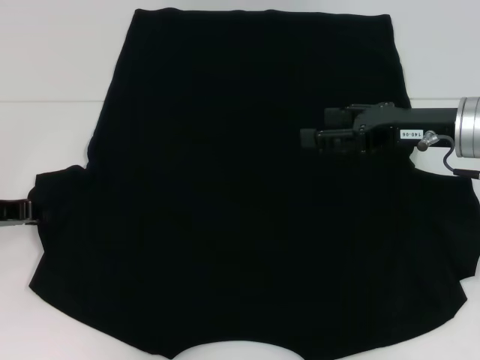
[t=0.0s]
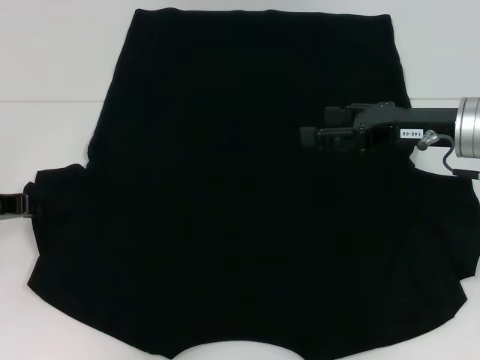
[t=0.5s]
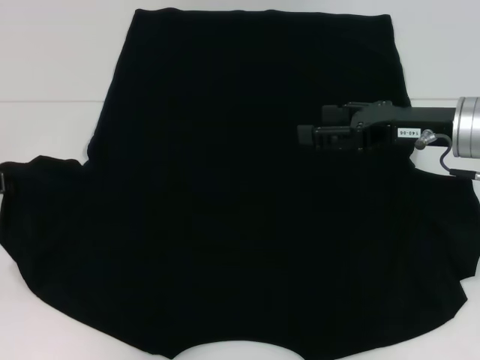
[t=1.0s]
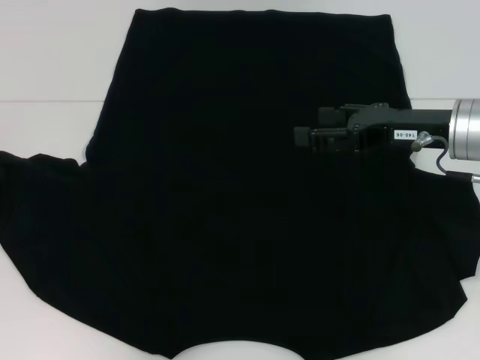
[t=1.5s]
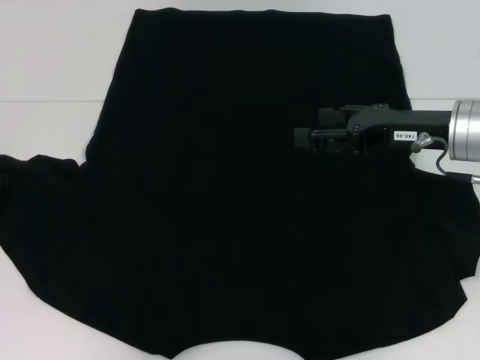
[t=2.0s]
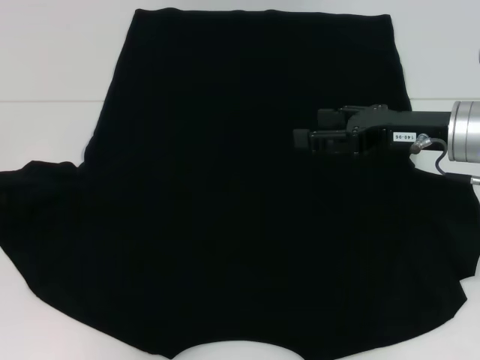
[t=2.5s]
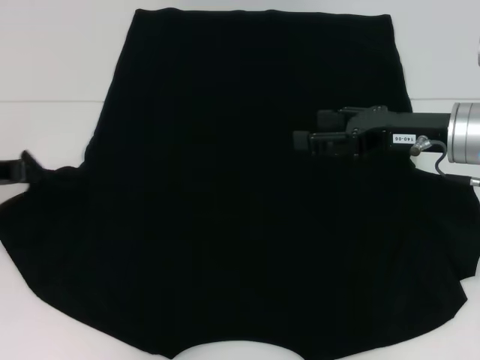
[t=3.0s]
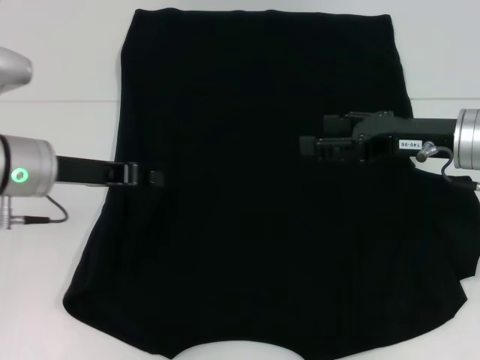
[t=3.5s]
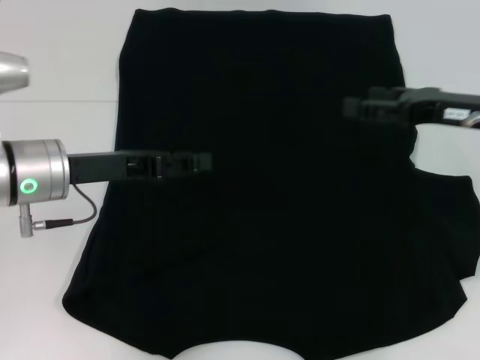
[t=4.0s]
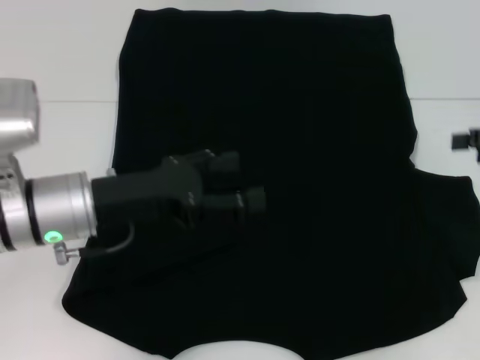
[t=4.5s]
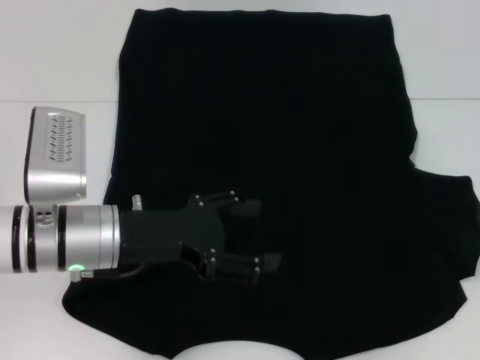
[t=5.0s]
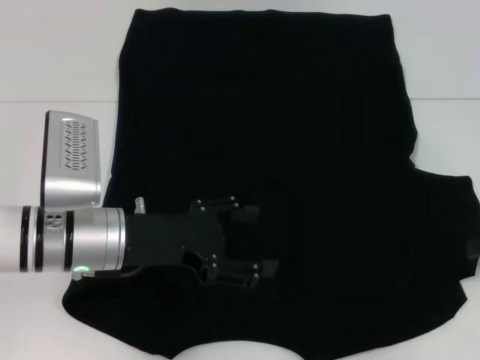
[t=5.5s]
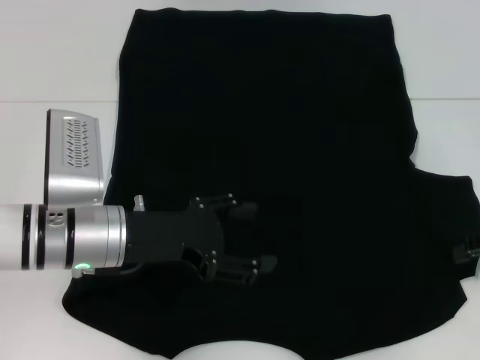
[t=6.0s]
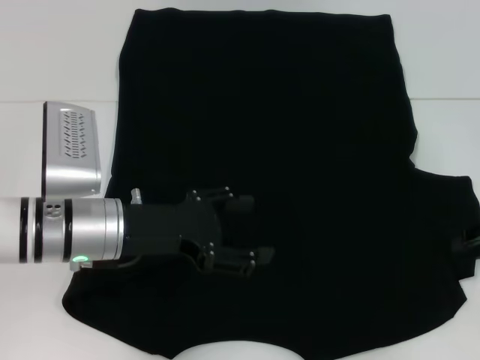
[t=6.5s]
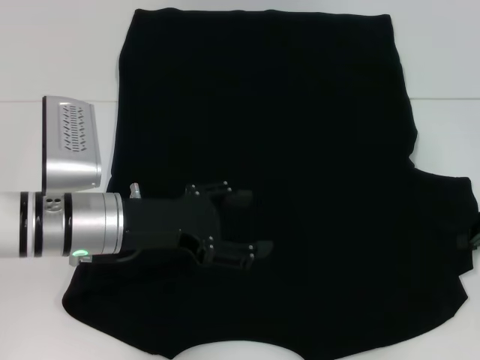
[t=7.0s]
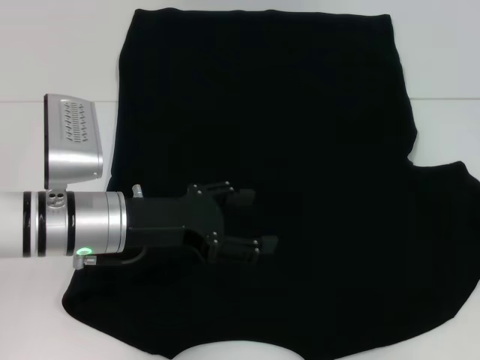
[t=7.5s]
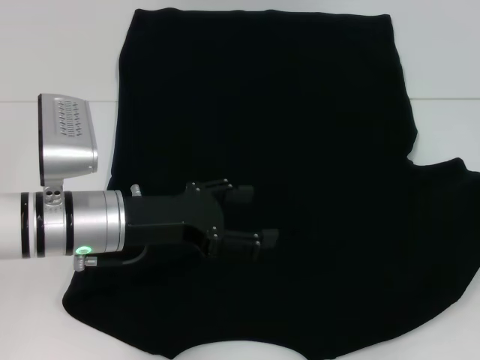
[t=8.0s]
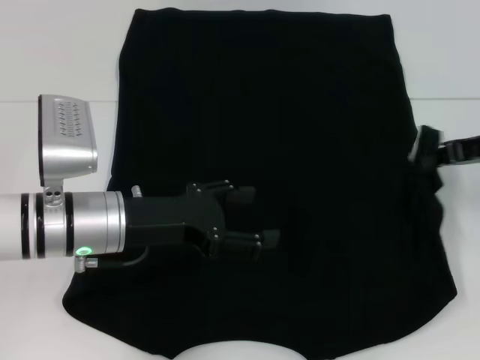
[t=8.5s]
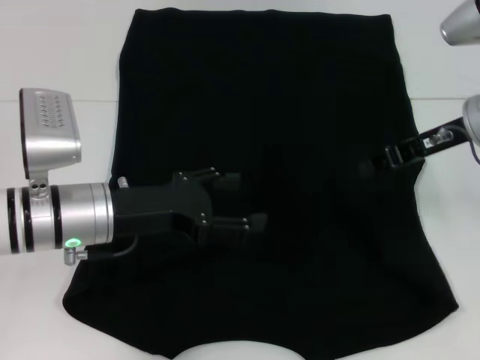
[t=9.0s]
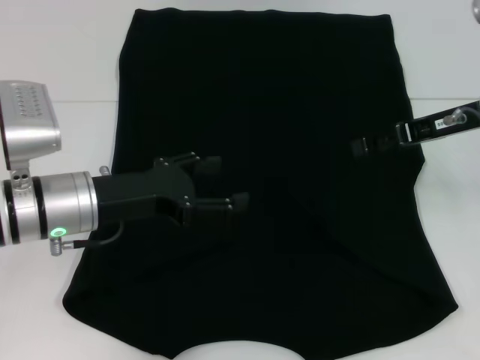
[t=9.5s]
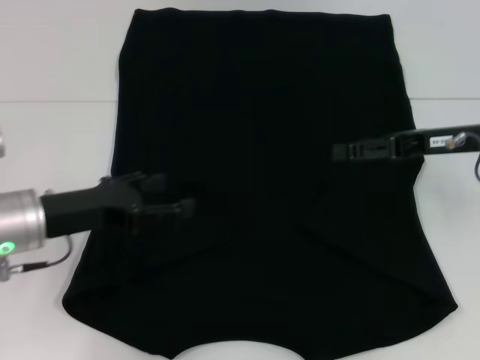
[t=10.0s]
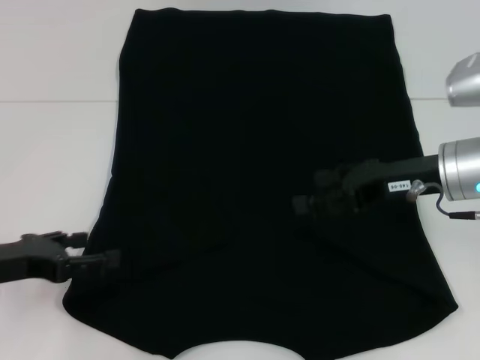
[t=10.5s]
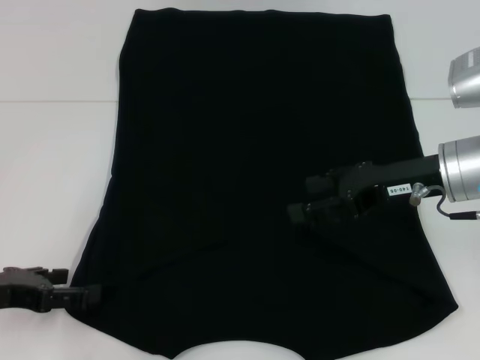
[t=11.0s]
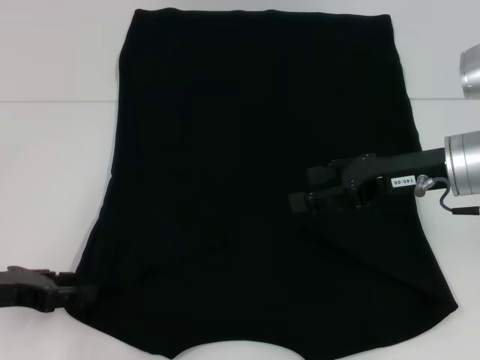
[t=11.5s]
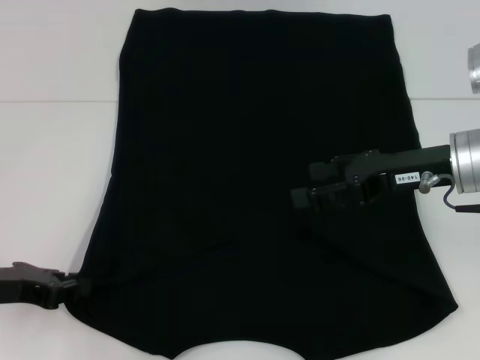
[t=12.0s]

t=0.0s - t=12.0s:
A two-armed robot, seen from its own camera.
Step, t=0.0s - t=4.0s: Fold the bottom left sleeve with your left hand.
Step, t=4.5s - t=9.0s: Fold the bottom right sleeve with your right hand.
t=0.0s - t=2.0s: The grippers stay close to where they were, moving slightly.
t=2.0s - t=4.0s: The left gripper heads to the right, covering some 15 cm, and opens up.
t=4.0s - t=6.0s: The left gripper moves roughly 5 cm, and opens up; the right gripper is displaced to the right by approximately 10 cm.
t=6.0s - t=8.0s: The right gripper closes up.
t=8.0s - t=10.0s: The right gripper travels to the left by about 10 cm, and opens. The left gripper goes some 5 cm to the left.
t=10.0s - t=12.0s: The left gripper shifts some 5 cm to the left, and closes.

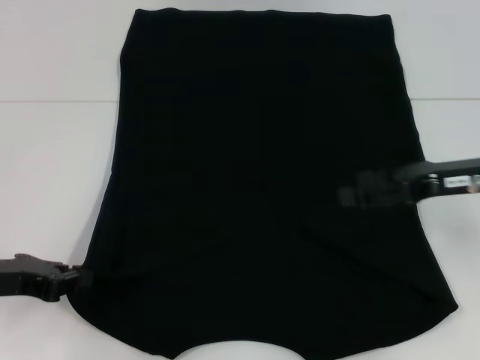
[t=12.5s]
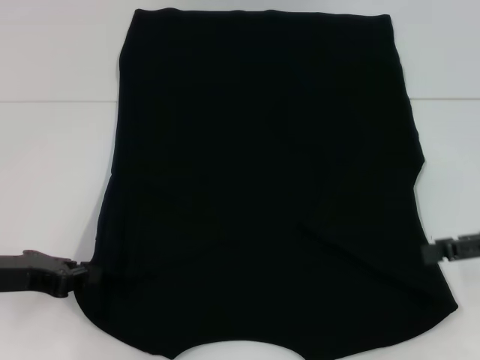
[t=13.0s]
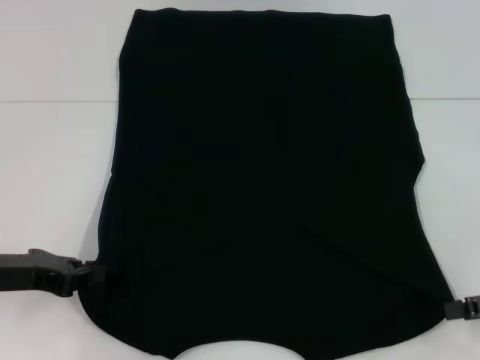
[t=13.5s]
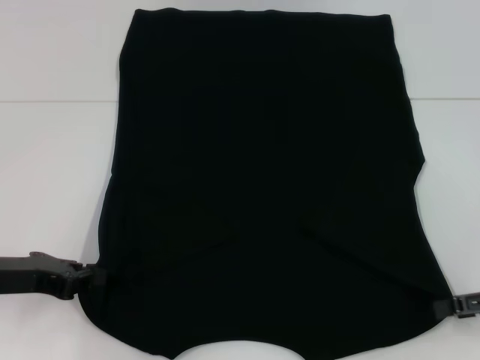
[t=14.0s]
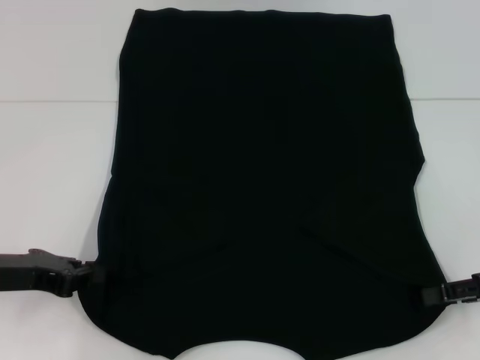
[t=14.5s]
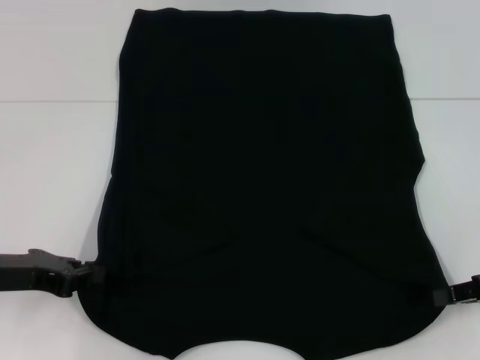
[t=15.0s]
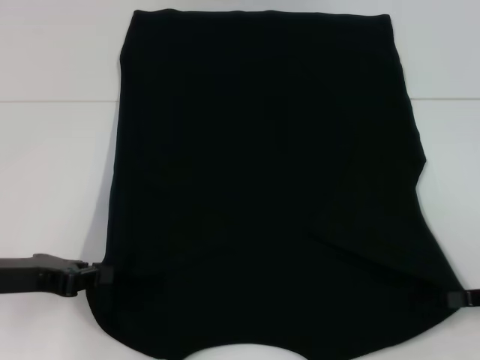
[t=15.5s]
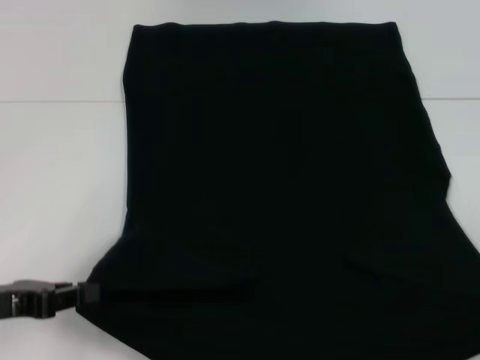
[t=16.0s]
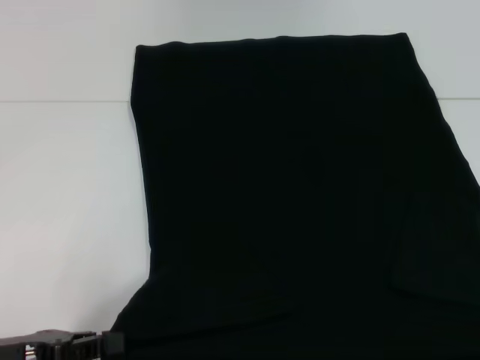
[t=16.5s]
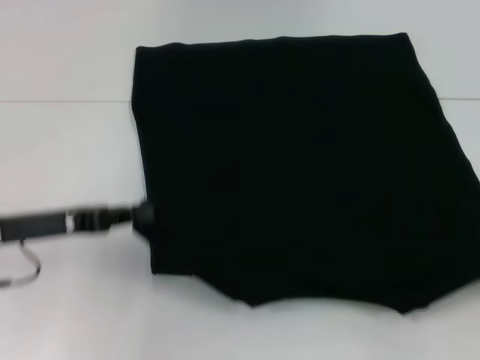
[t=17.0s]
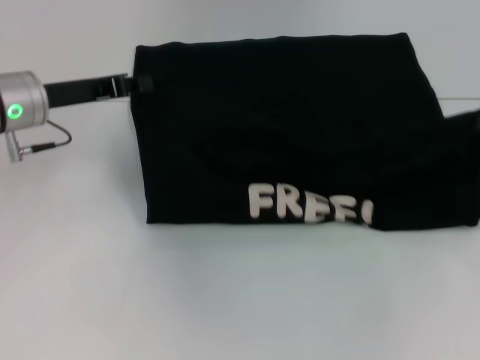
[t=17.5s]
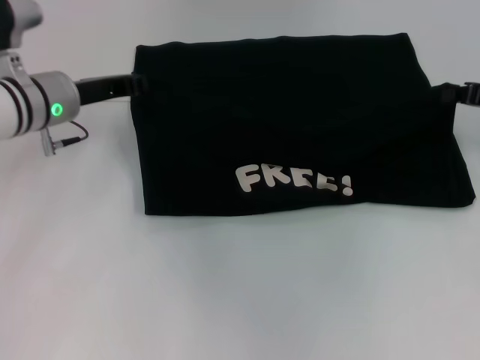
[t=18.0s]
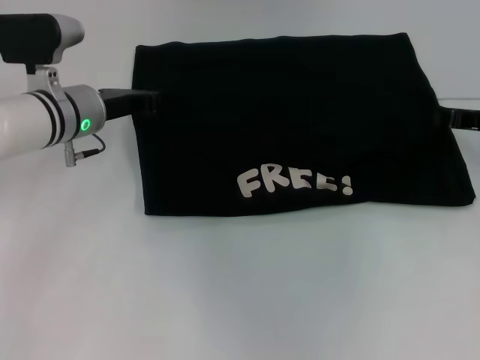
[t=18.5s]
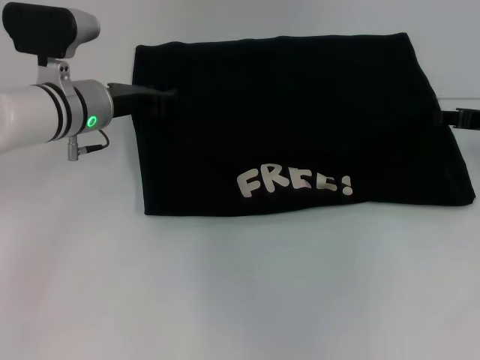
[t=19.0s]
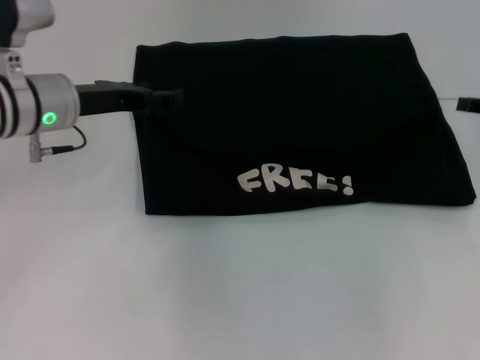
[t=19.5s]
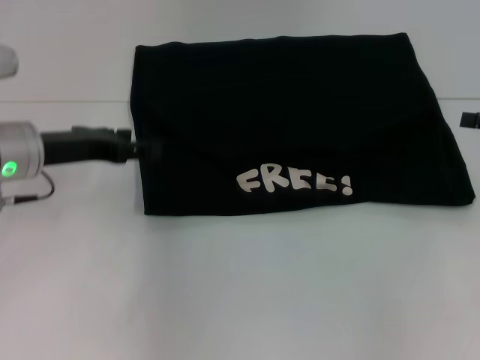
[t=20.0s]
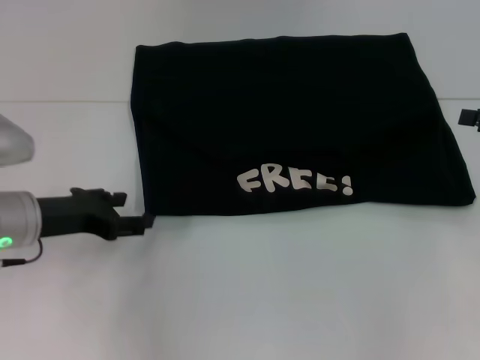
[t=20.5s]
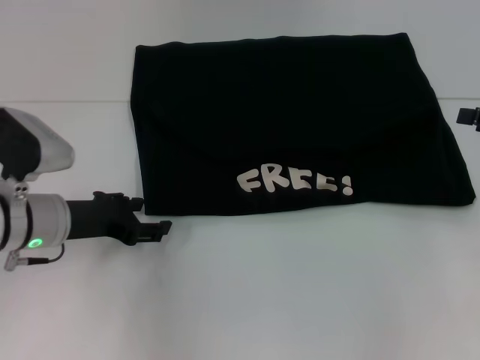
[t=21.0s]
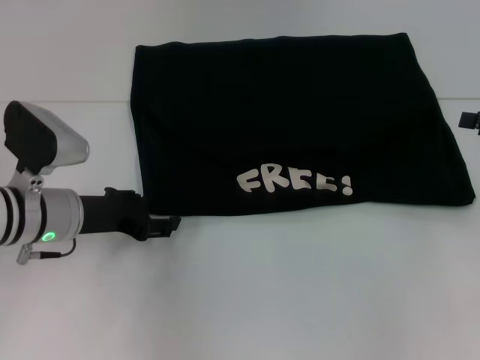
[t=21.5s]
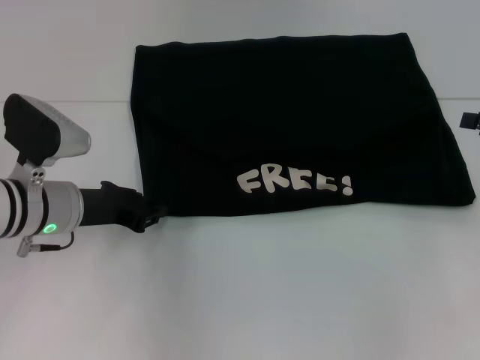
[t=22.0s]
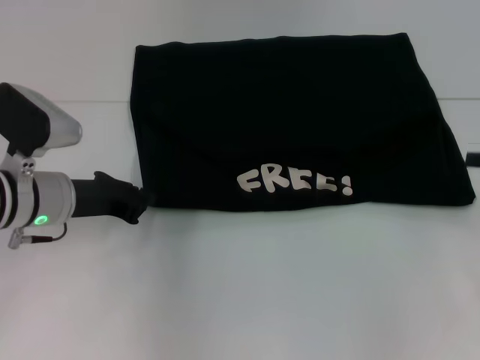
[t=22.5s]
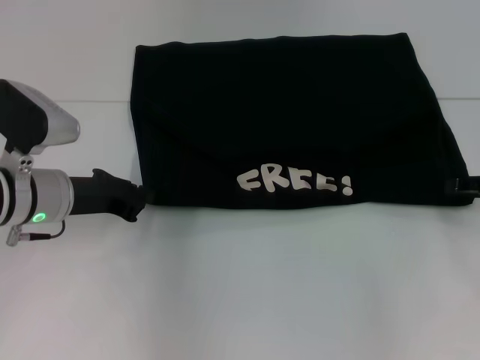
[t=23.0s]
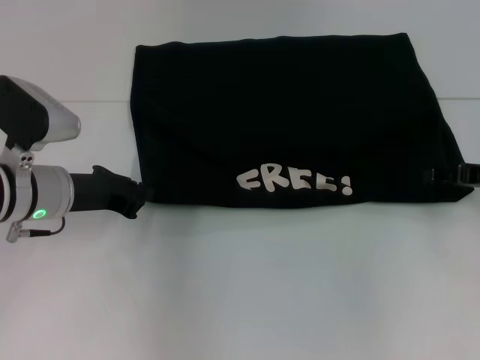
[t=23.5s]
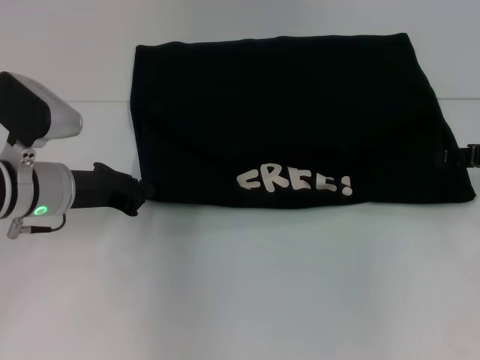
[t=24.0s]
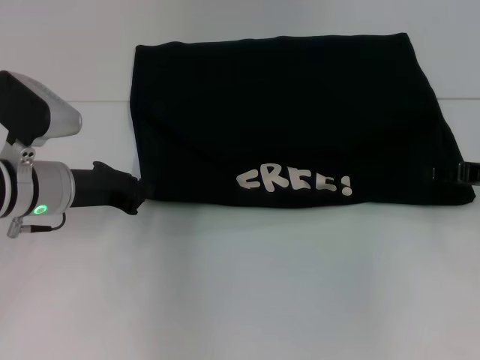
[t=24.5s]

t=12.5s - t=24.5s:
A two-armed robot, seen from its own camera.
Step, t=12.5s - t=15.0s: Grab the bottom right corner with your right hand.
Step, t=15.5s - t=20.0s: Fold the clothes with your left hand.
Step, t=15.5s - t=20.0s: Fold the clothes with your right hand.
t=12.5s - t=14.5s: The right gripper heads to the right, backward and downward, covering roughly 10 cm.
t=14.5s - t=16.5s: The left gripper goes about 10 cm backward, while the right gripper moves backward and to the right, roughly 15 cm, and closes up.
t=16.5s - t=18.5s: The right gripper moves forward and to the left, approximately 30 cm. Meanwhile the left gripper travels forward and to the right by roughly 25 cm.
t=18.5s - t=20.5s: The right gripper travels backward and to the right by about 10 cm, and opens its fingers, while the left gripper is displaced backward and to the left by some 10 cm, and opens its fingers.
t=20.5s - t=22.5s: The left gripper closes its fingers.
t=22.5s - t=24.5s: The right gripper heads to the left, covering about 5 cm.

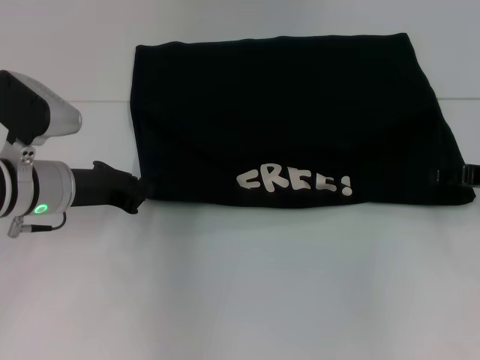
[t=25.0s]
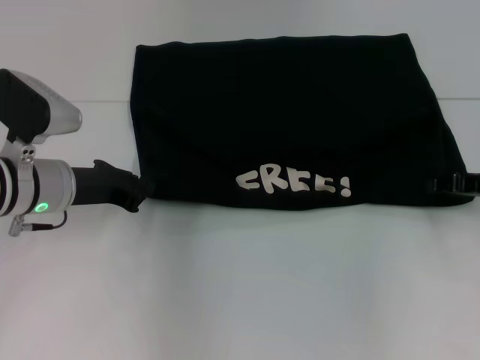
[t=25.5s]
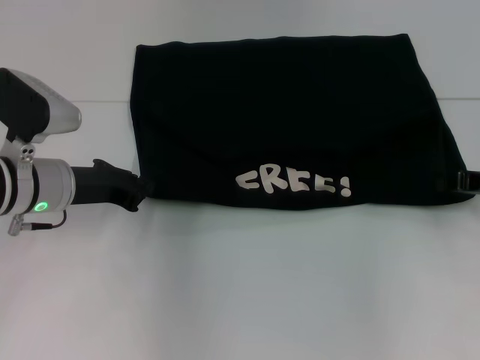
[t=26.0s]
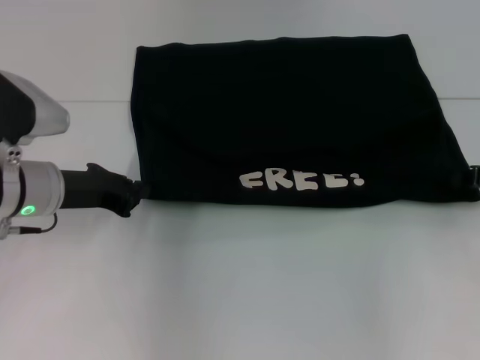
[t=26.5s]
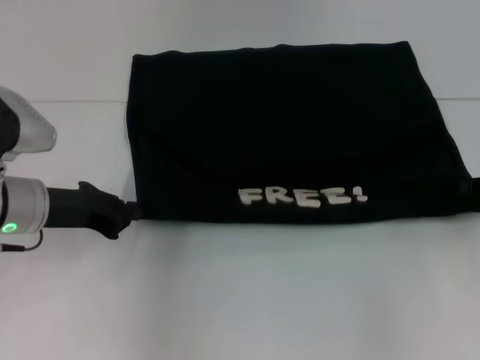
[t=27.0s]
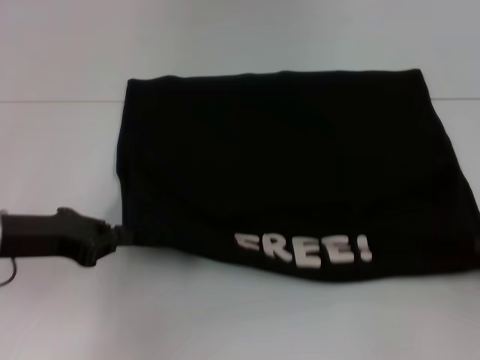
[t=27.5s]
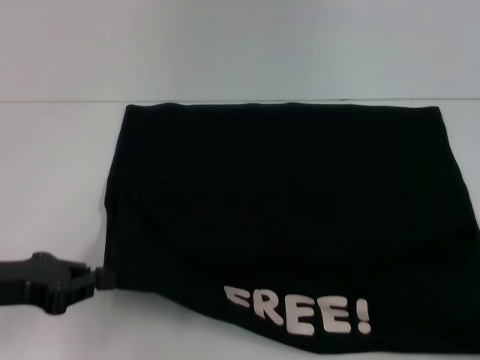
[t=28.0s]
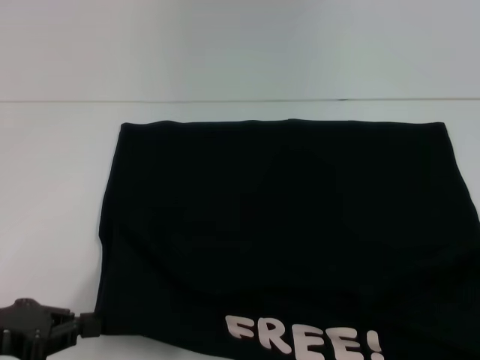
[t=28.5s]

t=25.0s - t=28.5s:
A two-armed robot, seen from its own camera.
Step, t=25.0s - t=28.0s: Pull the clothes with your left hand.
Step, t=25.0s - t=28.0s: Pull the clothes with your right hand.
t=25.0s - t=27.0s: The right gripper closes its fingers.
t=27.0s - t=28.5s: The left gripper moves backward and to the left, roughly 15 cm; the right gripper is displaced backward by roughly 20 cm.
